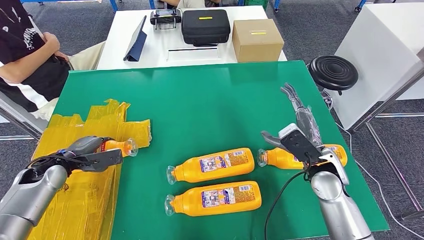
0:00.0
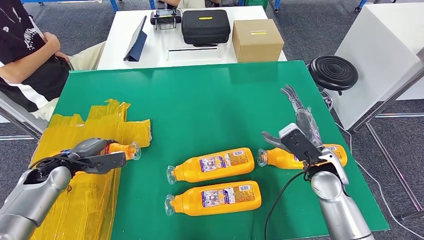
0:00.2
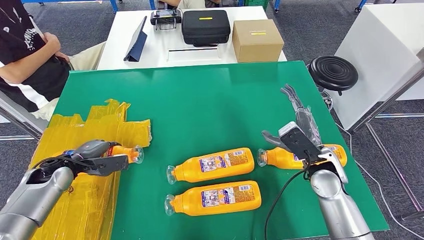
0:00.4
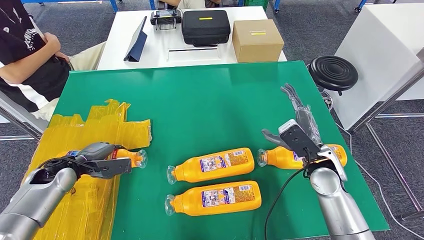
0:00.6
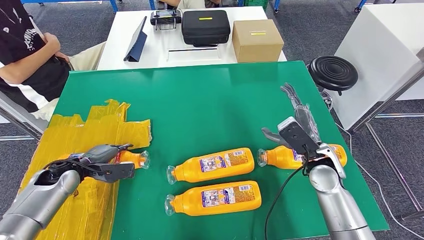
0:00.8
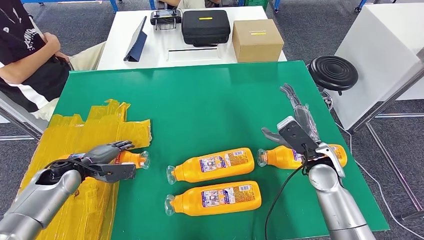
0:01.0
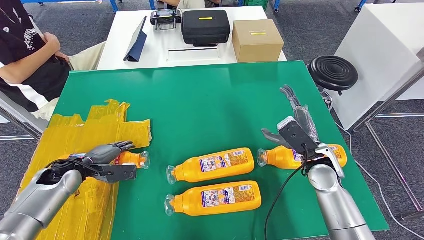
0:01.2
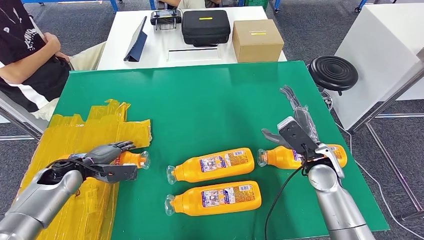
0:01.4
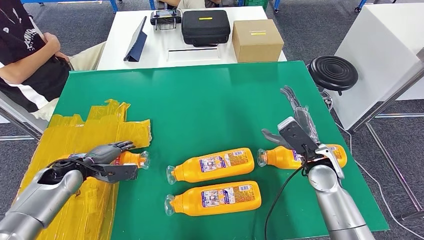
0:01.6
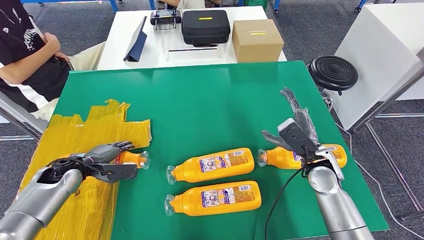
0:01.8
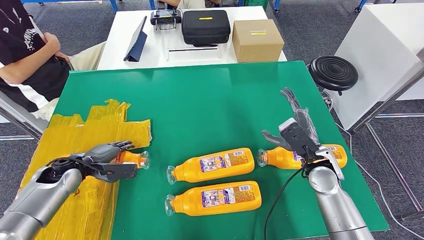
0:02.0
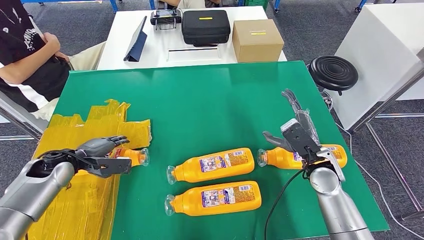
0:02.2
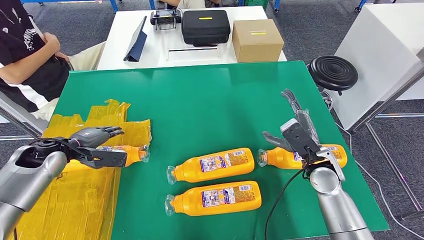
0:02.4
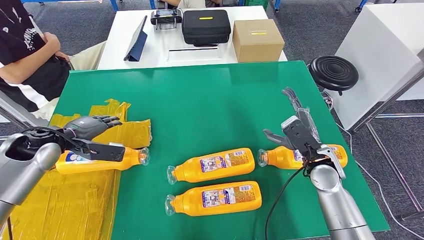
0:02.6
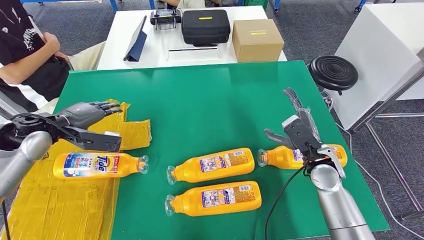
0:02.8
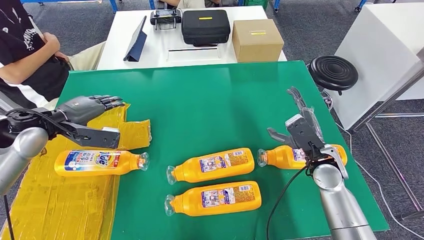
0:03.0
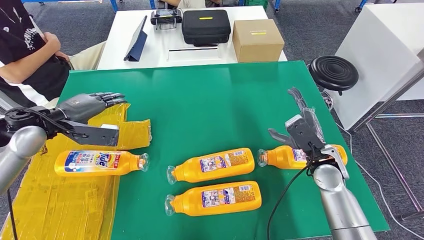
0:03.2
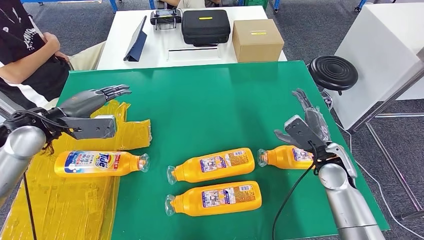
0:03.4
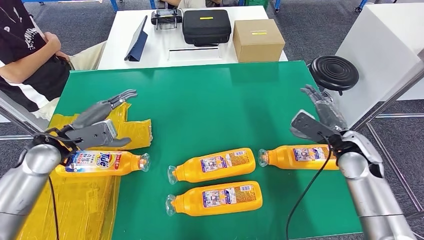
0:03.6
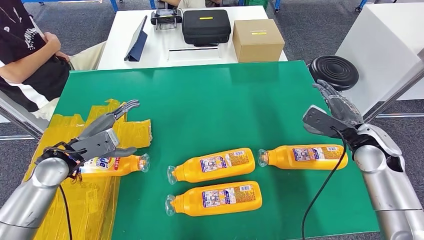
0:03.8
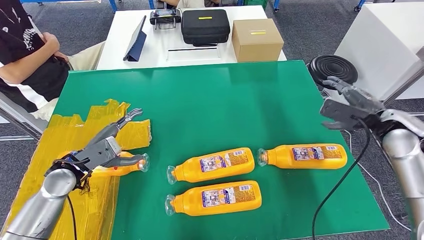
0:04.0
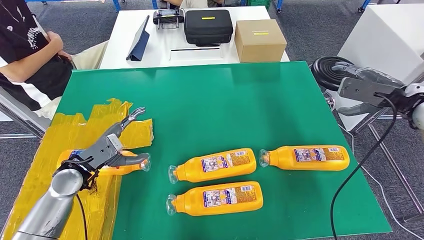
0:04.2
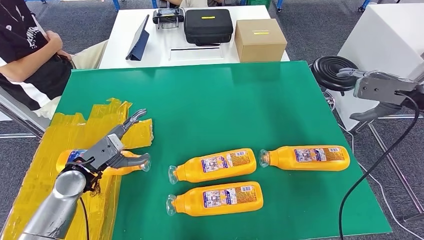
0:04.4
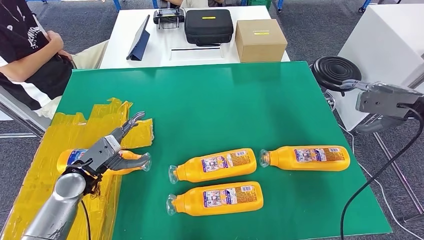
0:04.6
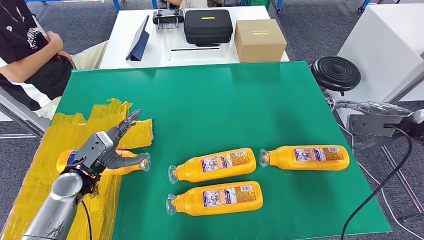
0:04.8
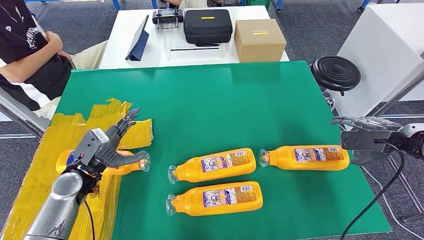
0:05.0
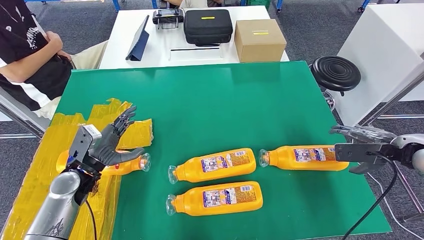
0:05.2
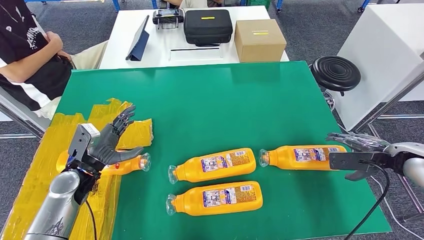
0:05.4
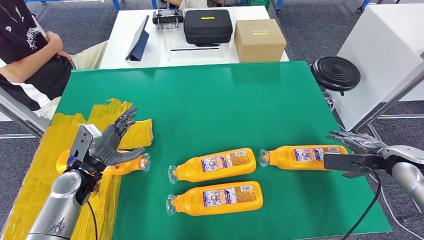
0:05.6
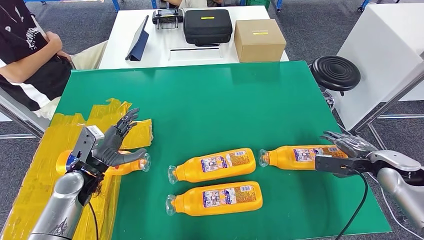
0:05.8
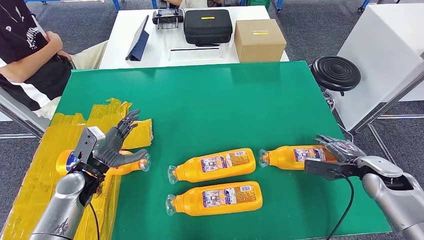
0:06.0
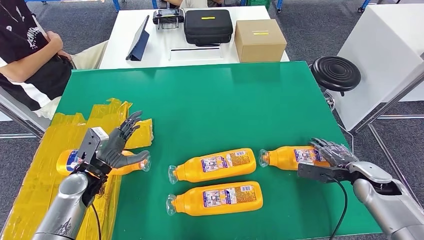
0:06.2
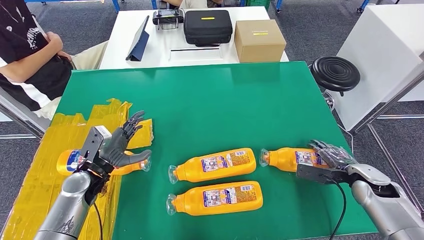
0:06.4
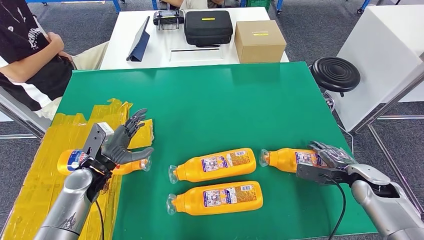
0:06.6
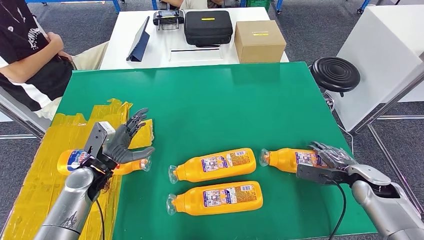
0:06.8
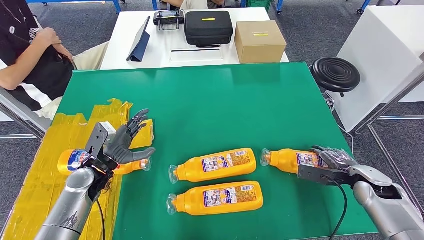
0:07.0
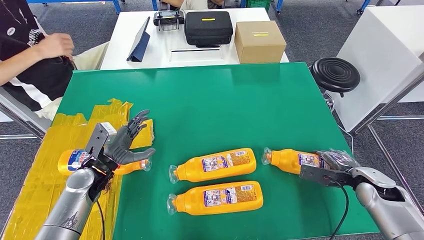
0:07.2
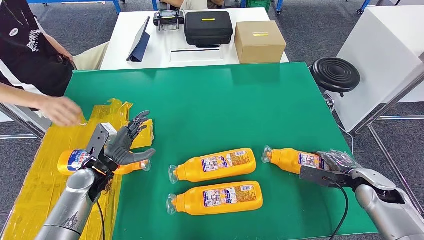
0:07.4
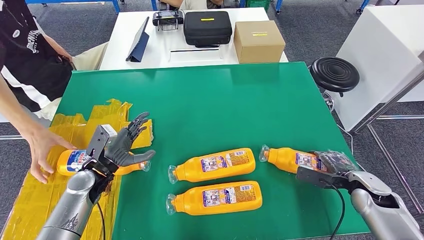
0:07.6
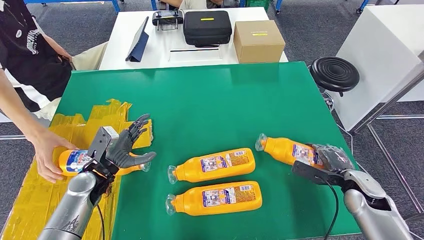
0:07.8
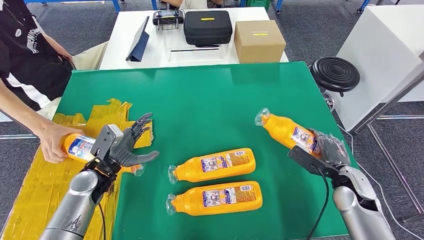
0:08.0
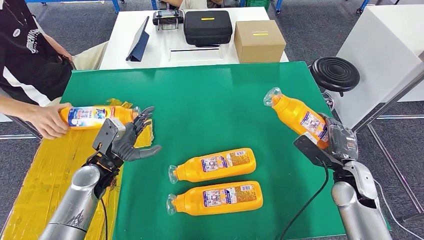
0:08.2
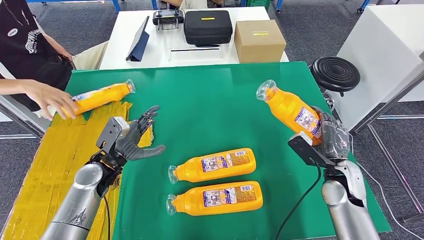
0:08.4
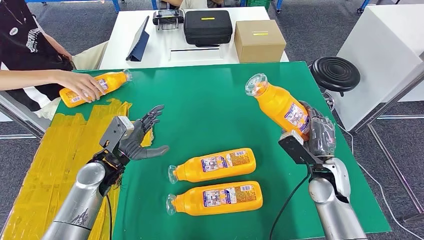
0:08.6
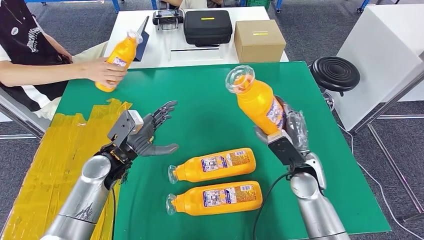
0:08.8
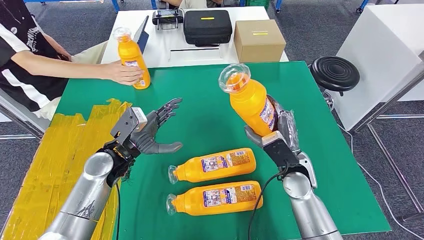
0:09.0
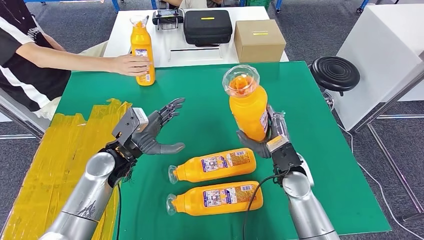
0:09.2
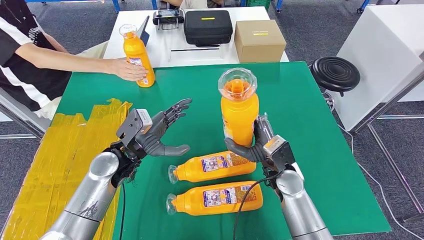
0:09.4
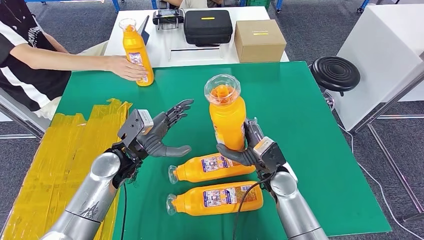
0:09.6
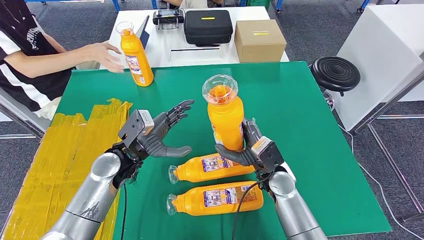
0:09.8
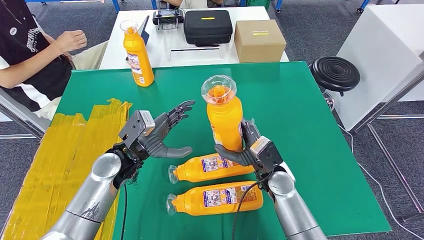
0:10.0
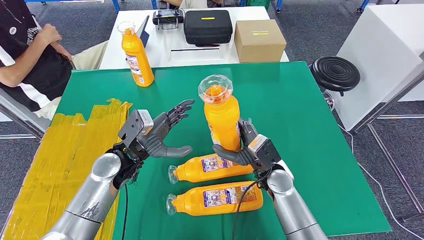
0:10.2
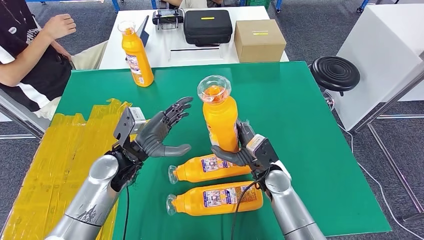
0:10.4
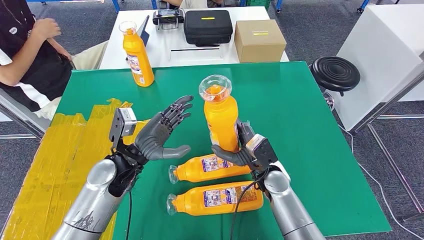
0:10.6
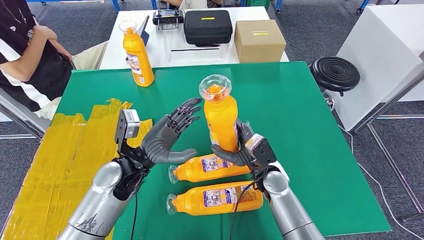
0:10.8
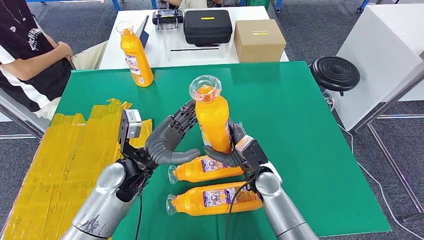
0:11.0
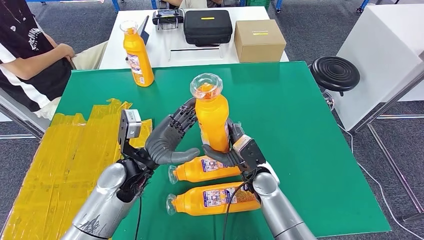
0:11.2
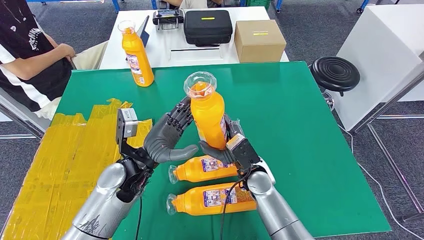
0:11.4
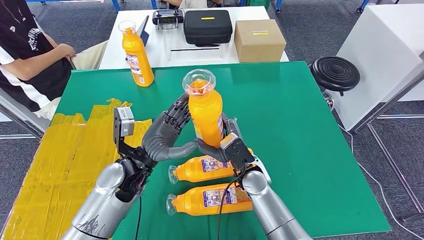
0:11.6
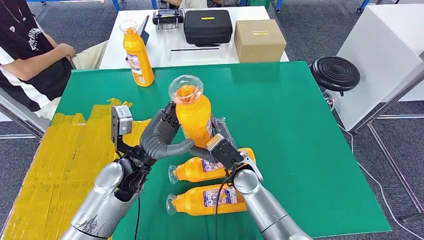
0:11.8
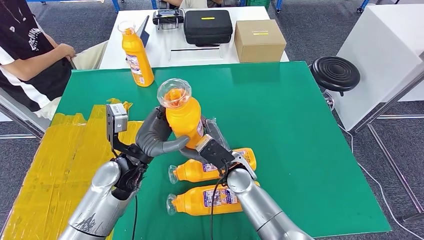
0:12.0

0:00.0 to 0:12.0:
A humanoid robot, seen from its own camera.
Step, 0:00.0 to 0:03.0: Flip the fast-moving consumer goods bottle to the front side.
Step, 0:03.4 to 0:10.6: Pick up the fast-moving consumer goods bottle from the table.
0:00.0 to 0:01.6: The hands move only a little.
0:01.6 to 0:03.0: The left hand goes about 15 cm upward.
0:04.4 to 0:06.0: The right hand shifts about 20 cm downward.
0:10.4 to 0:12.0: The right hand travels to the left by some 10 cm.

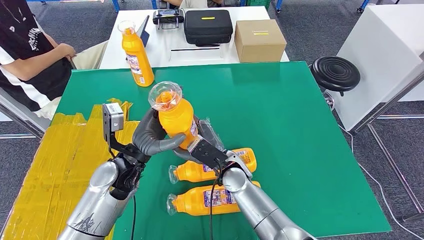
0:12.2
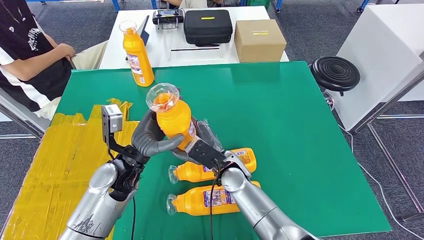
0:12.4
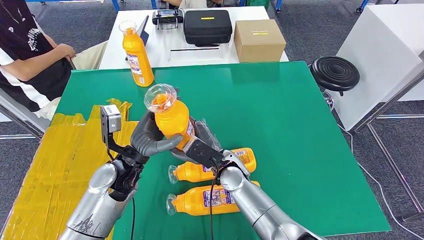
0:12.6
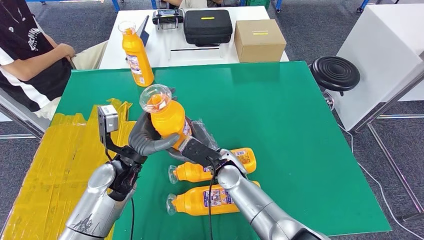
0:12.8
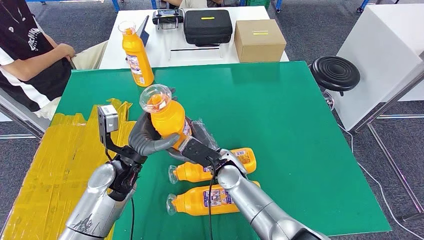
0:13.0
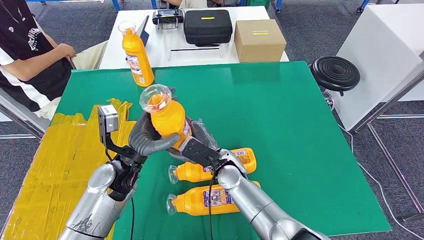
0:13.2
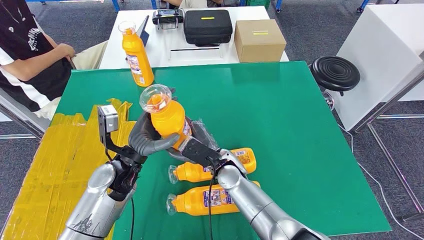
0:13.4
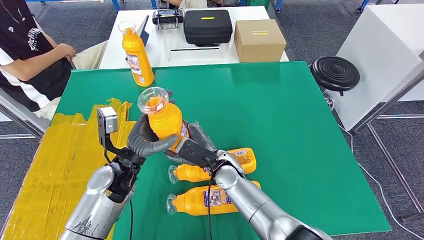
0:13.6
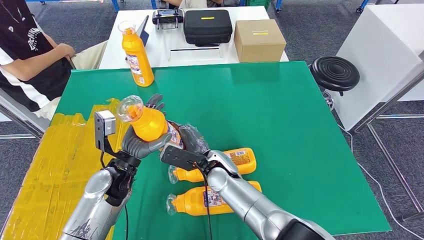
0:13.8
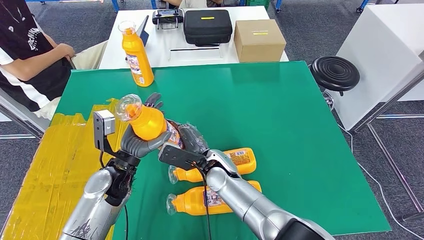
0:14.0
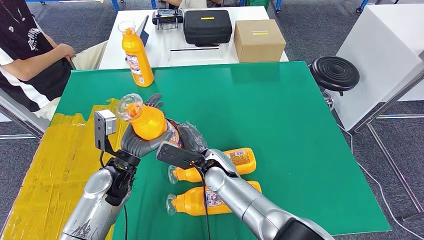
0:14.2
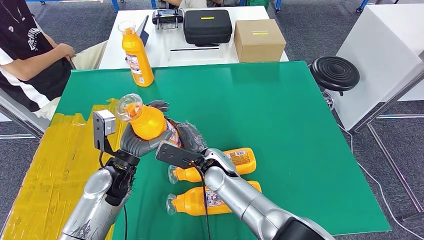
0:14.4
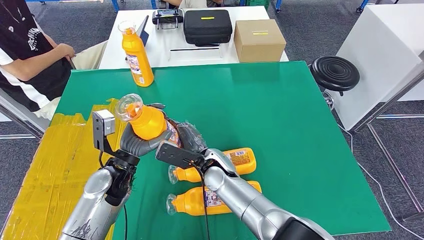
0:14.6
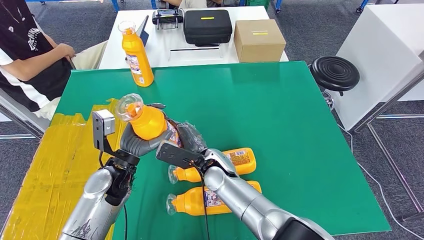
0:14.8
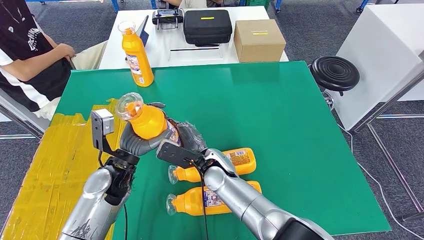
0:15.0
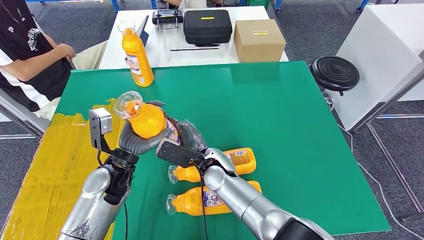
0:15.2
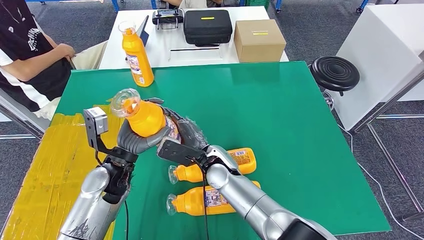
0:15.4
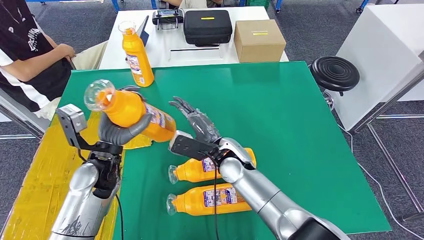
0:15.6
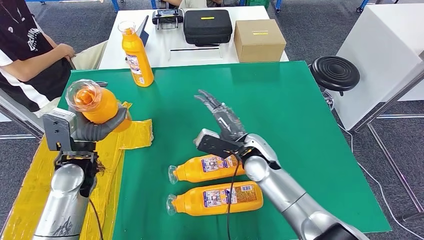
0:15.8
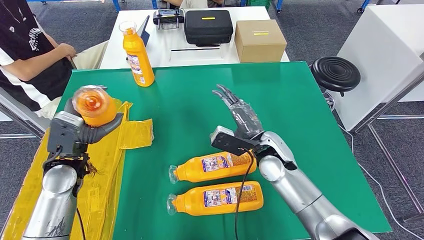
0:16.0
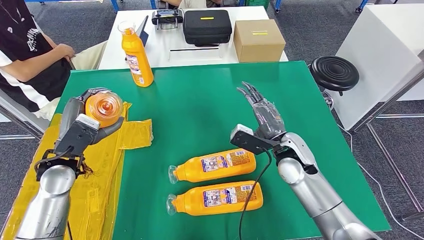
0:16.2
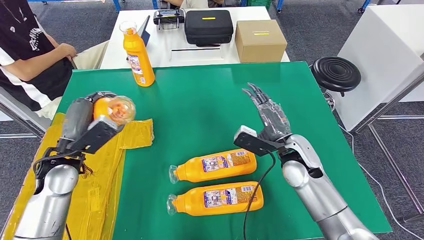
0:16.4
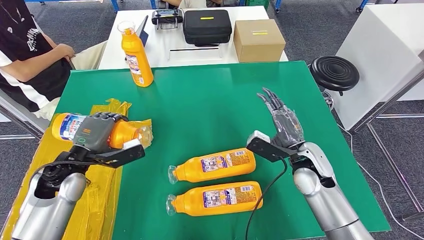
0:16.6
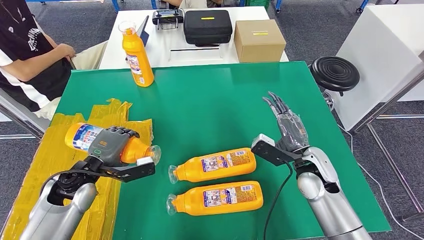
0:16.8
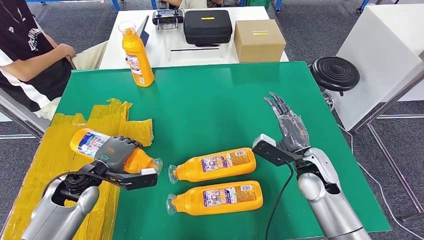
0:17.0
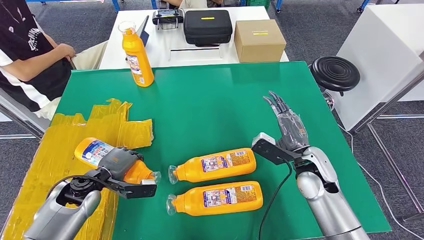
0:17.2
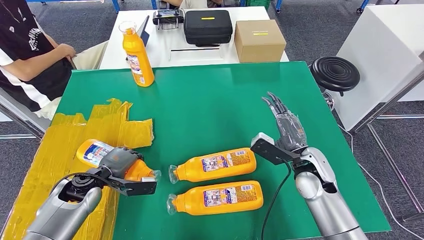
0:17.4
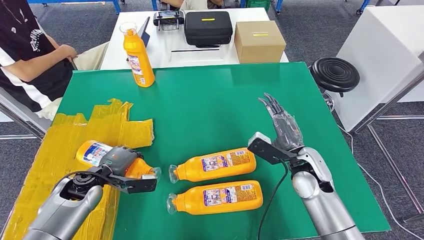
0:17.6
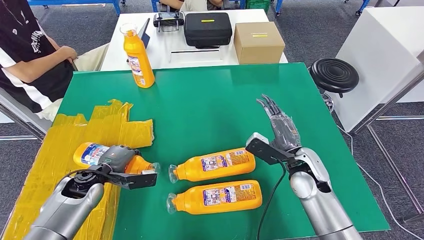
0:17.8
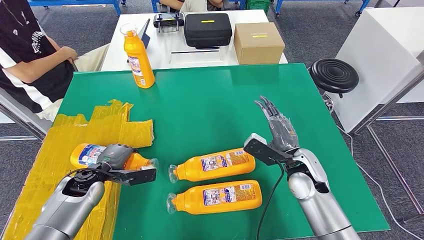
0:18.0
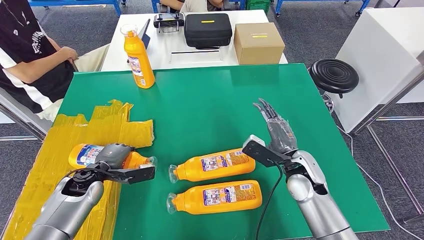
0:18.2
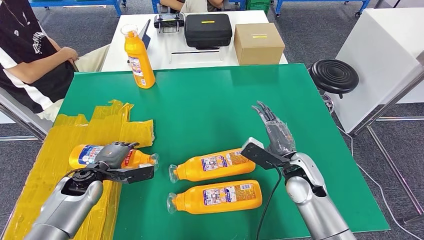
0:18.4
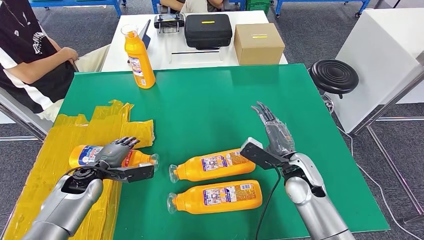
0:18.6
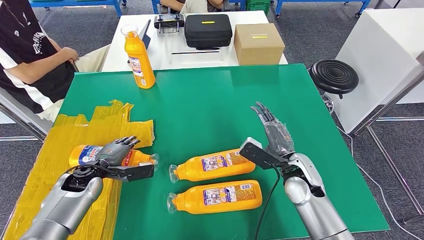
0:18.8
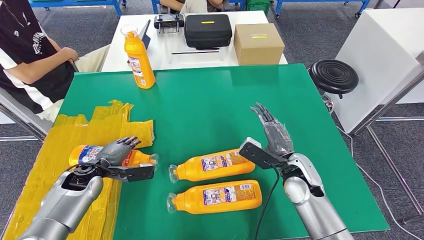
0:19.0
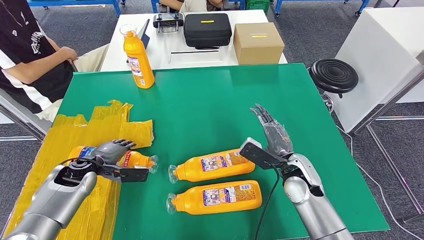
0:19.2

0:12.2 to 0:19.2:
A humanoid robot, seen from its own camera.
0:12.2 to 0:15.0: The hands stay close to where they were, moving slightly.
0:17.8 to 0:19.2: The hands move only a little.
